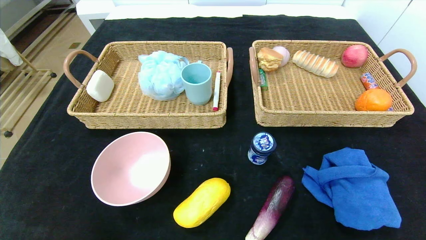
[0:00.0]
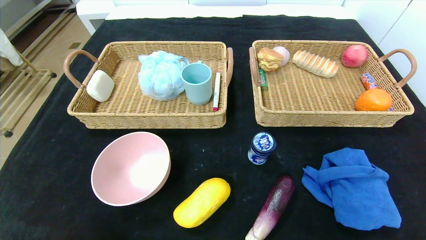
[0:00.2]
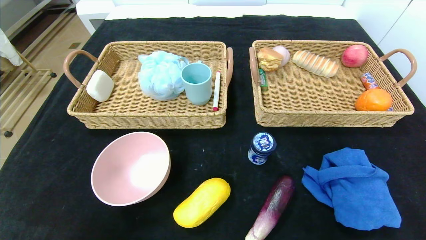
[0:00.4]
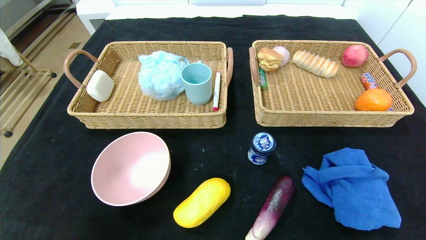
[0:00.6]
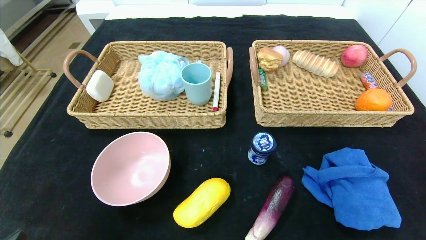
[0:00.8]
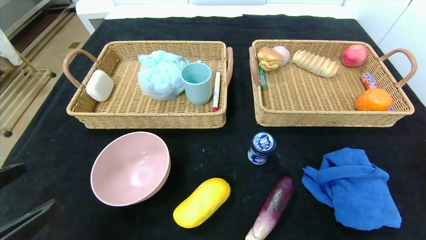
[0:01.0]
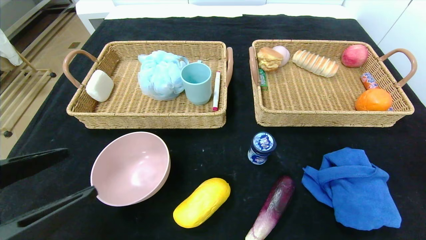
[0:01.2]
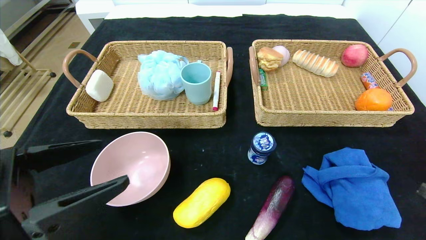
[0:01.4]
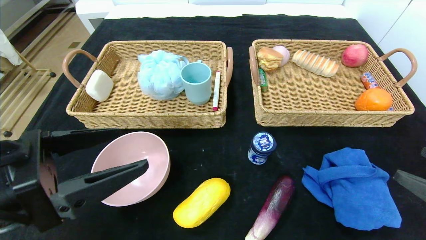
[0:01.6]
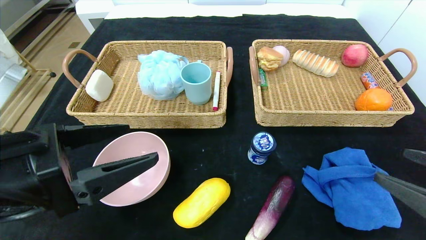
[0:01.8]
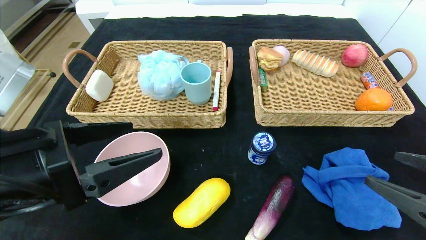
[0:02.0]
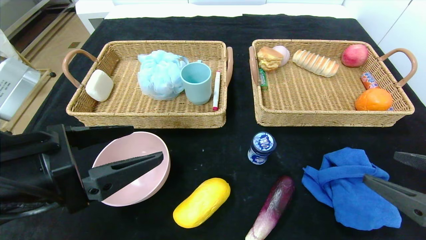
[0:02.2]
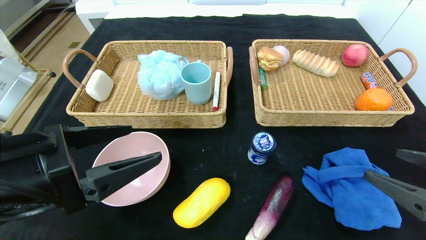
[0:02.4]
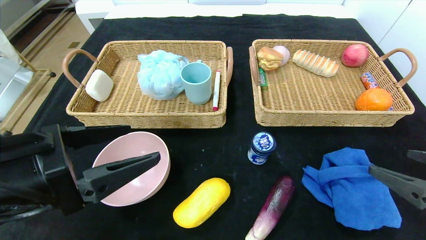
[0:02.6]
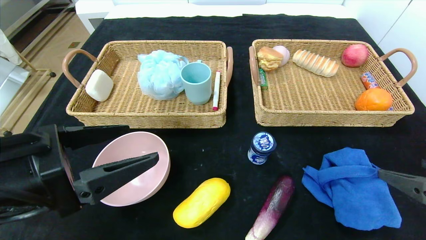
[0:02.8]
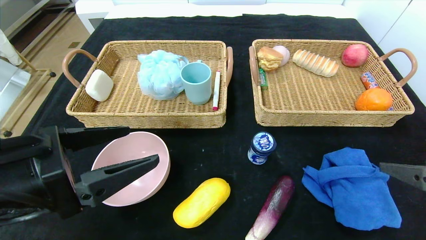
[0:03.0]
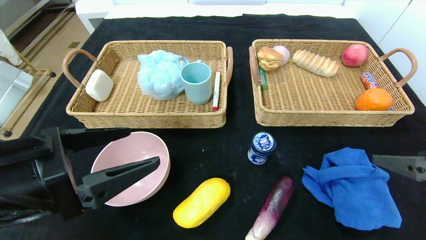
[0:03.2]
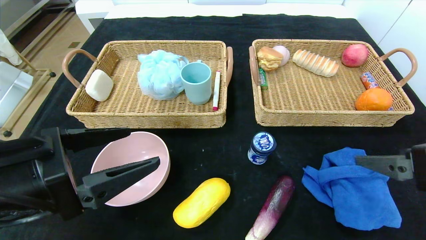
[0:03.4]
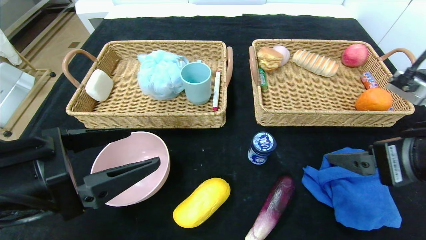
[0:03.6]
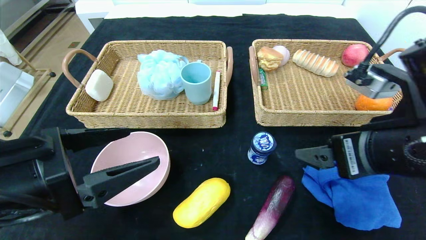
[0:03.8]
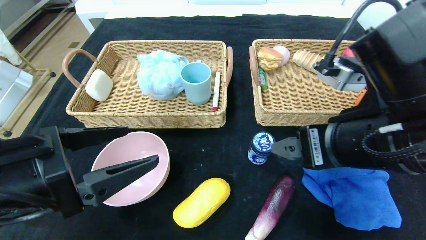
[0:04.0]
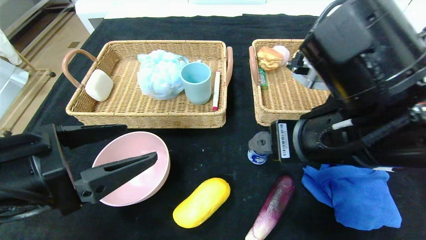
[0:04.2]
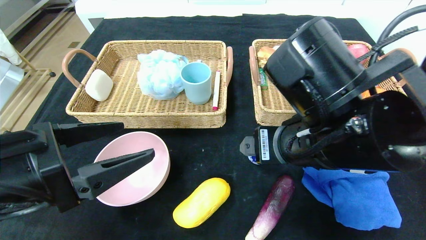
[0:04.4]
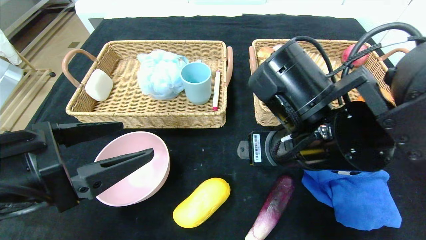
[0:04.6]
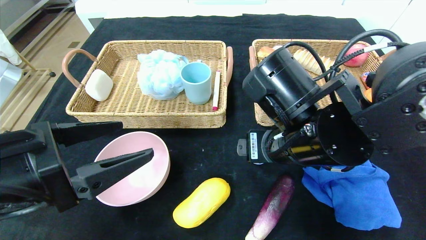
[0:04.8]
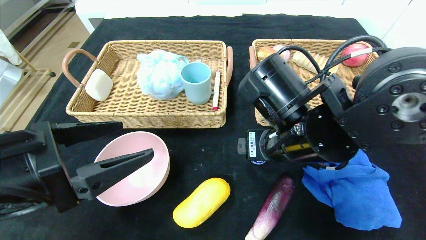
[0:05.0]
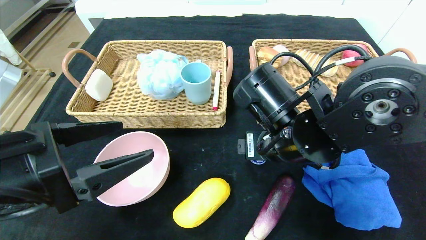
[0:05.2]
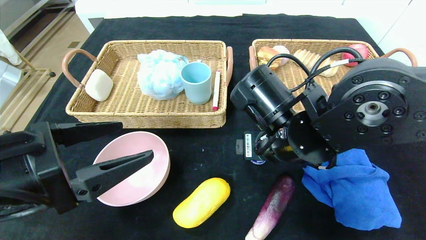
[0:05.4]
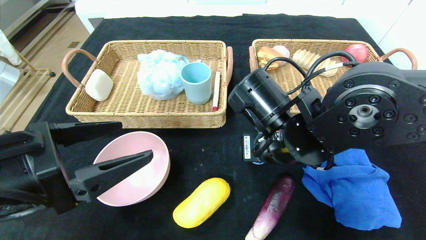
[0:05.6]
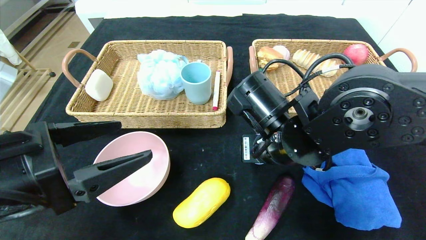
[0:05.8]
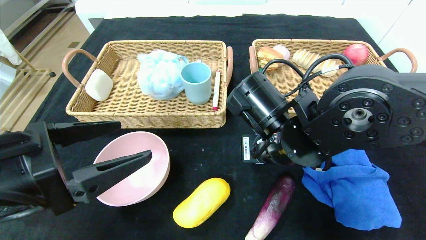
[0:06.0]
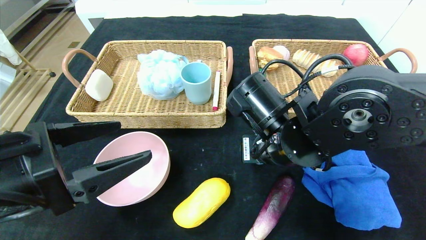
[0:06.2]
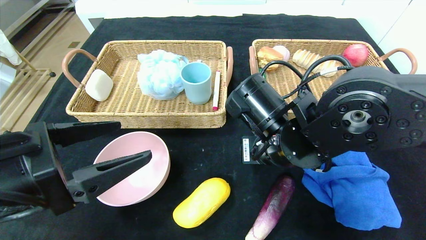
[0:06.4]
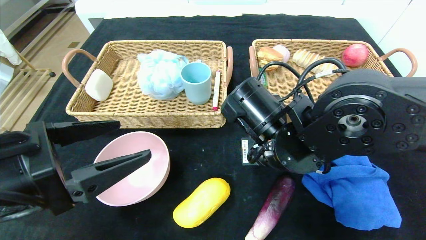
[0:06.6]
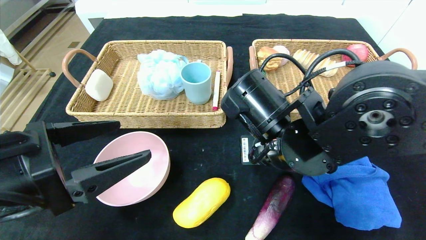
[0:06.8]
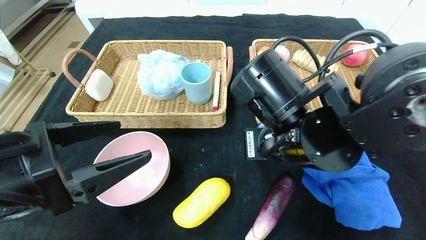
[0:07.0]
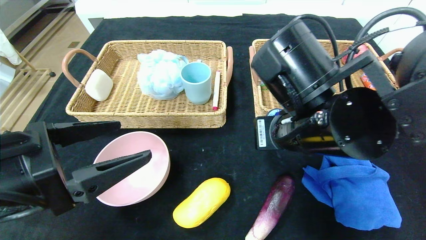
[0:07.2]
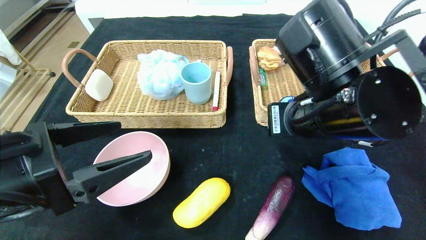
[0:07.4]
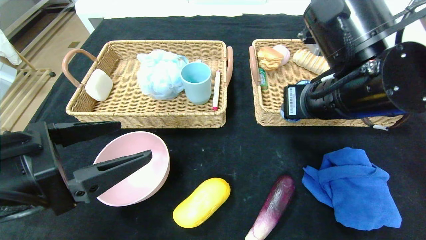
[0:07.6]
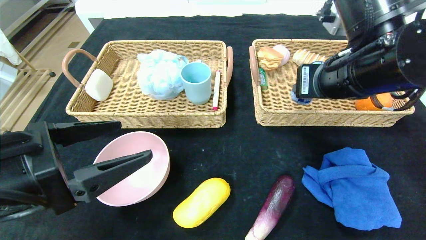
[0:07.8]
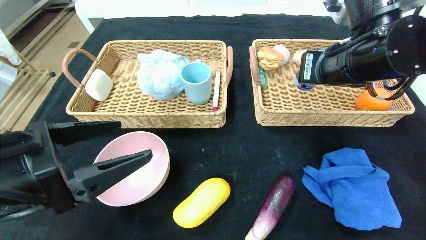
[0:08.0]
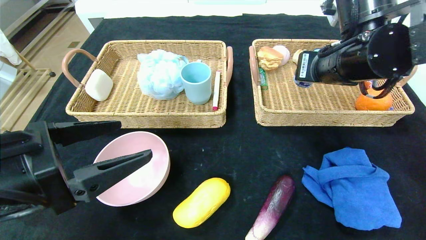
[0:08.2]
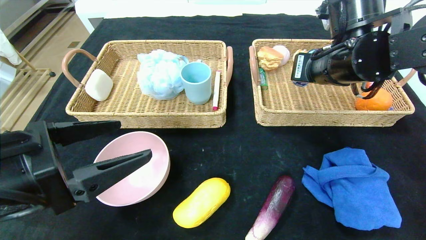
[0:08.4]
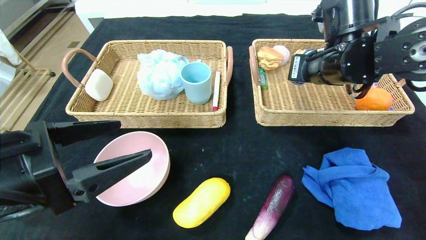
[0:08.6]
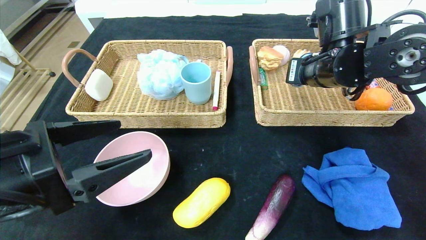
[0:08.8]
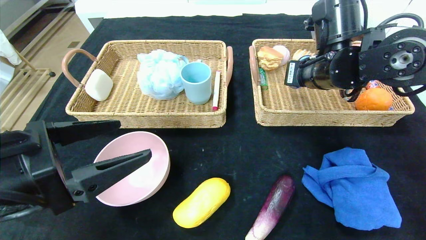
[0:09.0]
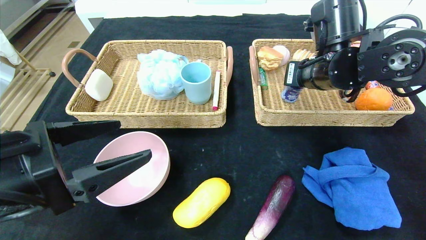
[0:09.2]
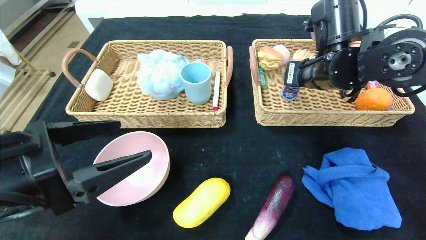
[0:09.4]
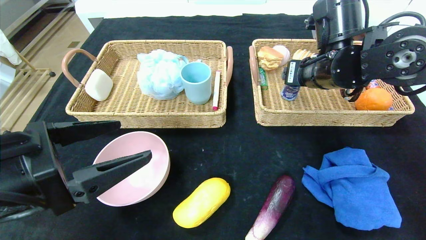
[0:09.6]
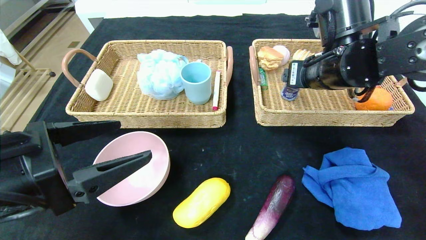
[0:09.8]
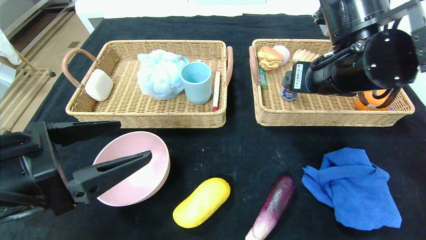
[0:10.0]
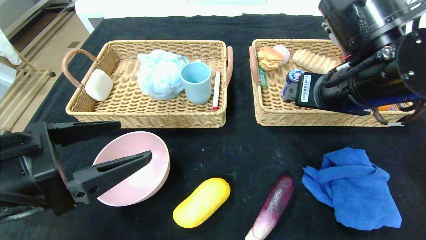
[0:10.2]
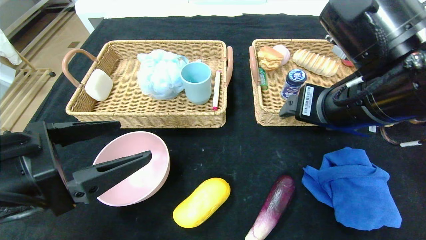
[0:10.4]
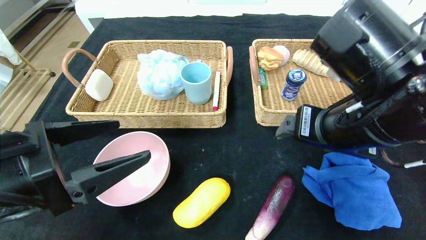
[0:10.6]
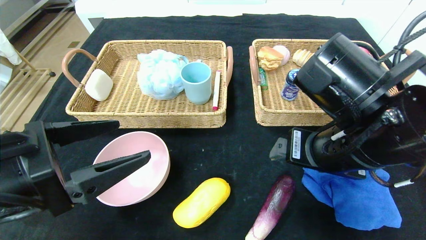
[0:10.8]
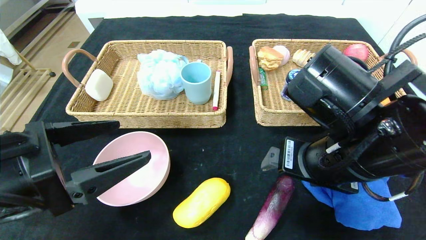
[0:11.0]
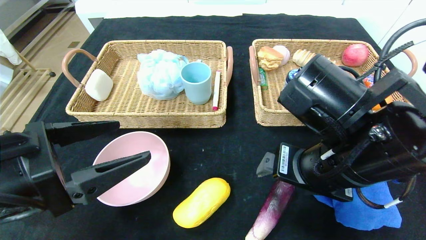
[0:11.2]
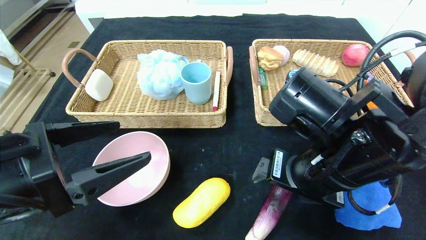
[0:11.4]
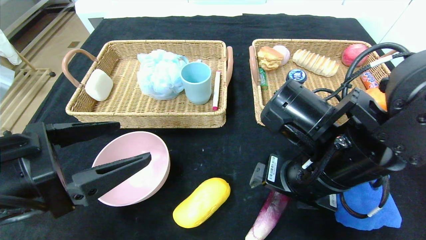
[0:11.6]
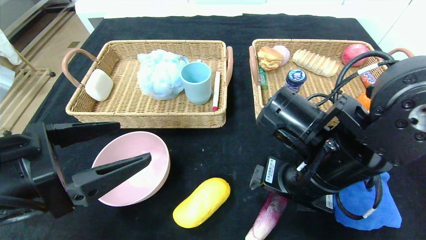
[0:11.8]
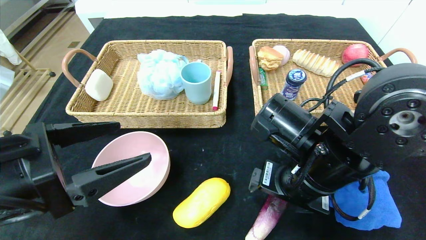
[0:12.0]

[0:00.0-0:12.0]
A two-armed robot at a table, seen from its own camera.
Step, 0:00.0 to 0:09.6: Grasp the round chewing gum and put it in the right basket.
0:00.0 to 0:01.6: The two grippers go about 5 cm forward.
0:03.0 to 0:04.4: The right gripper goes some 20 cm to the left.
0:04.4 to 0:06.0: The right gripper ends up about 5 cm from where it was, and closes its fingers.
0:06.0 to 0:07.6: The right gripper is displaced upward and to the right by roughly 10 cm.
0:07.6 to 0:09.0: The right gripper moves forward, approximately 10 cm.
0:09.0 to 0:10.4: The right gripper heads backward, covering about 15 cm, and opens its fingers.
0:10.4 to 0:12.0: The right gripper goes roughly 10 cm downward.

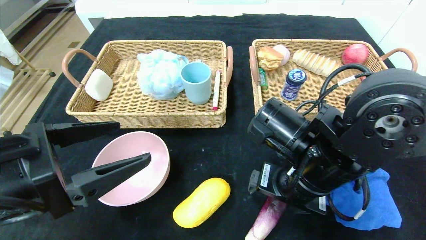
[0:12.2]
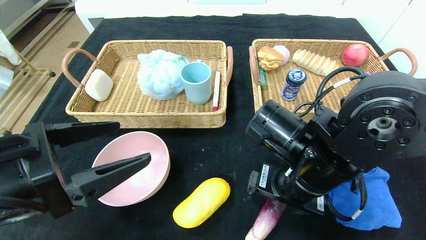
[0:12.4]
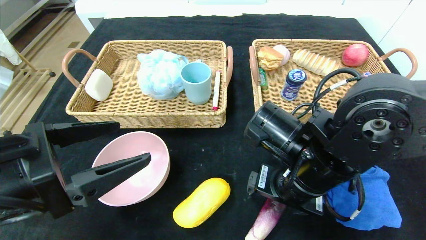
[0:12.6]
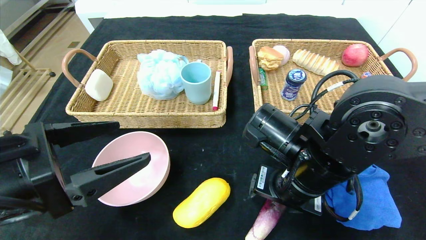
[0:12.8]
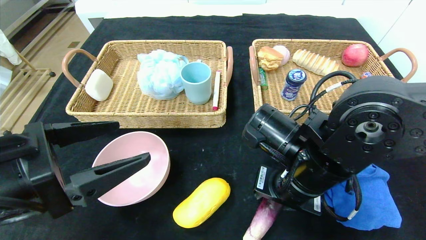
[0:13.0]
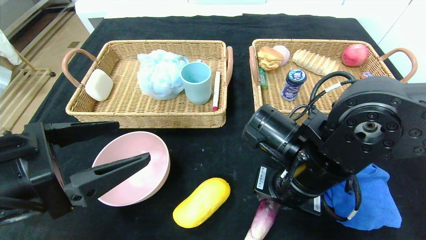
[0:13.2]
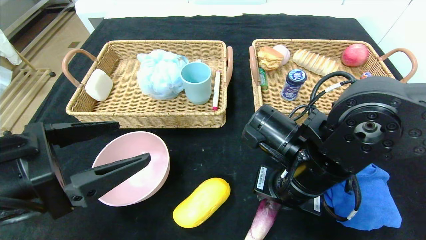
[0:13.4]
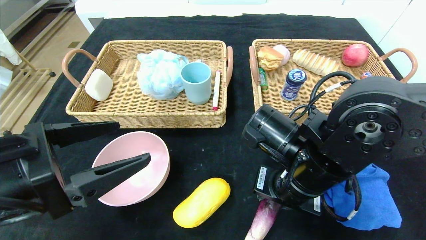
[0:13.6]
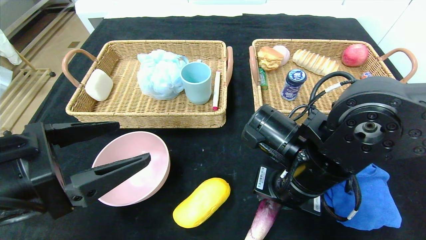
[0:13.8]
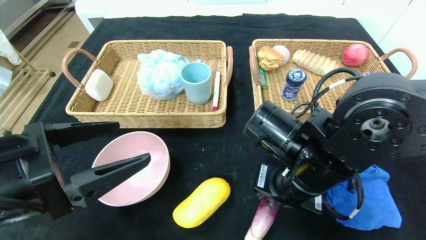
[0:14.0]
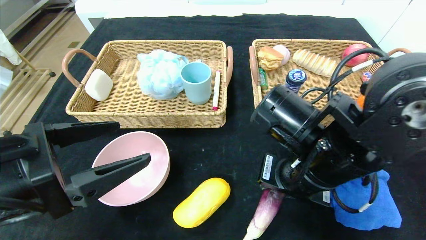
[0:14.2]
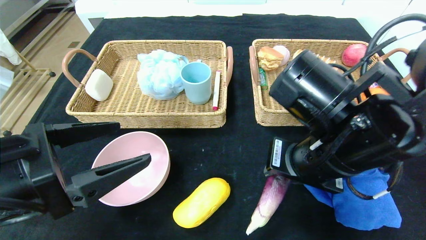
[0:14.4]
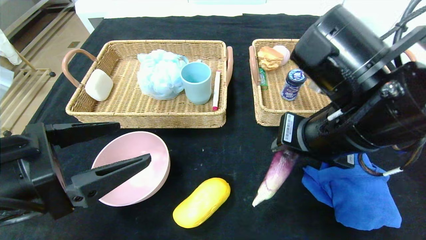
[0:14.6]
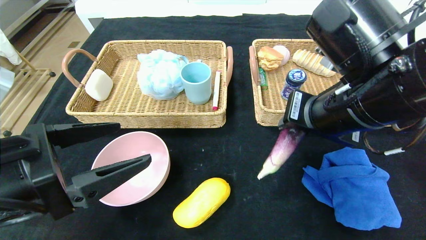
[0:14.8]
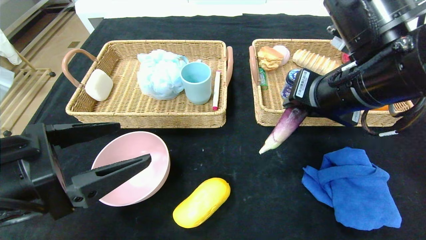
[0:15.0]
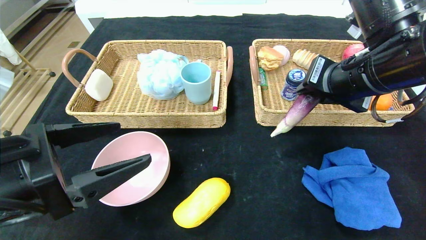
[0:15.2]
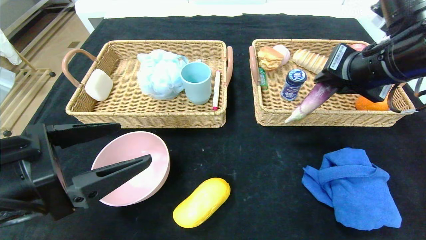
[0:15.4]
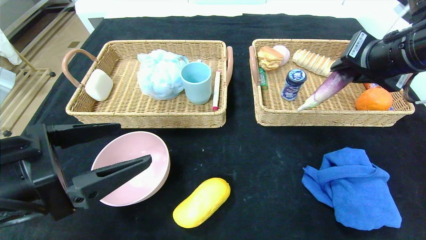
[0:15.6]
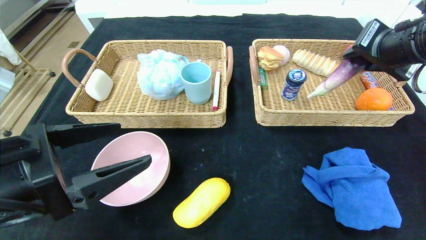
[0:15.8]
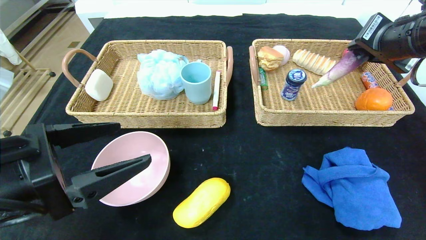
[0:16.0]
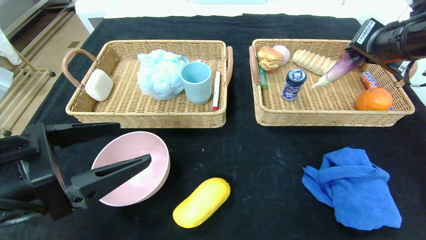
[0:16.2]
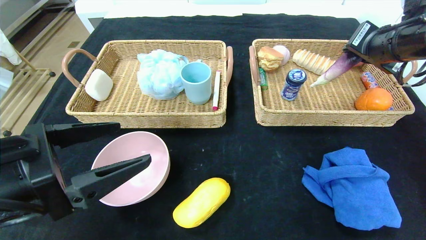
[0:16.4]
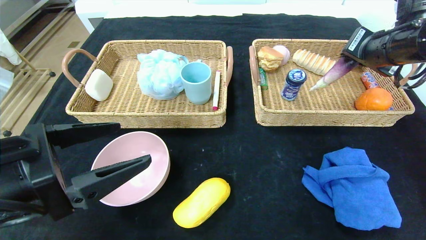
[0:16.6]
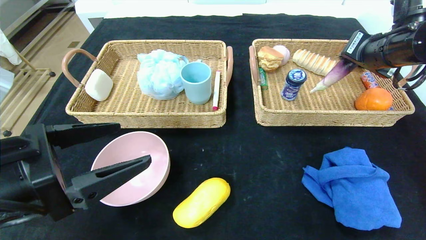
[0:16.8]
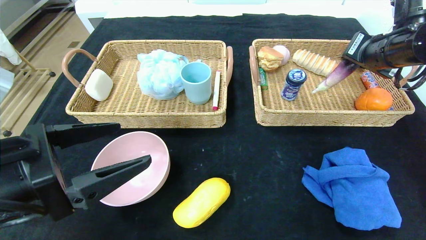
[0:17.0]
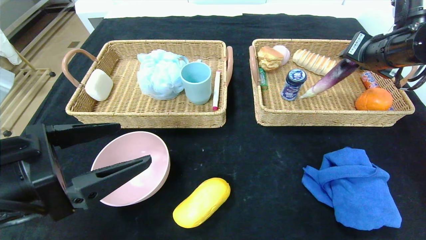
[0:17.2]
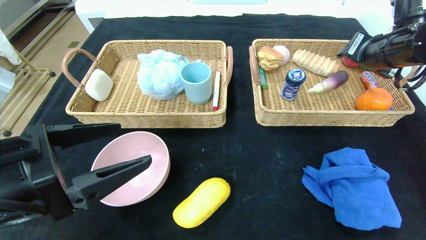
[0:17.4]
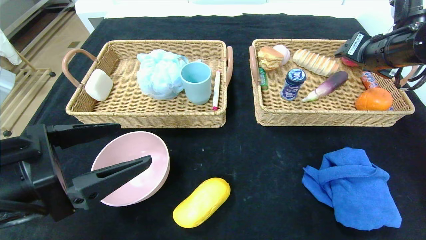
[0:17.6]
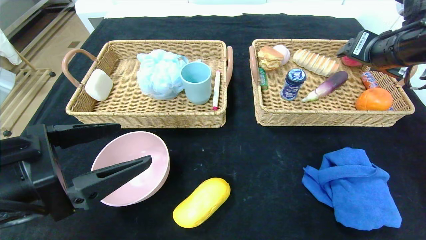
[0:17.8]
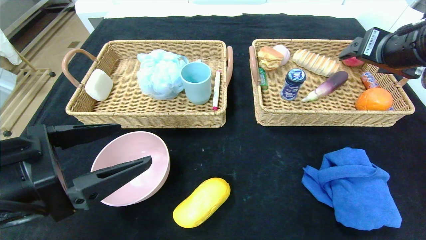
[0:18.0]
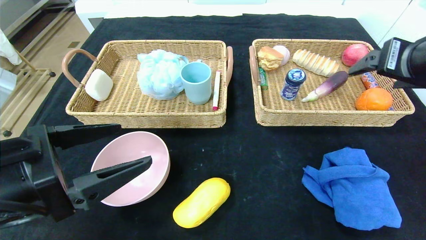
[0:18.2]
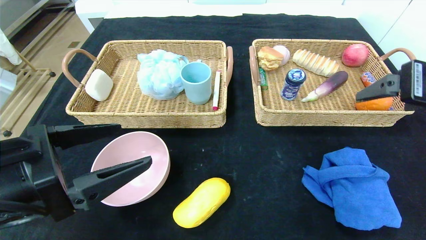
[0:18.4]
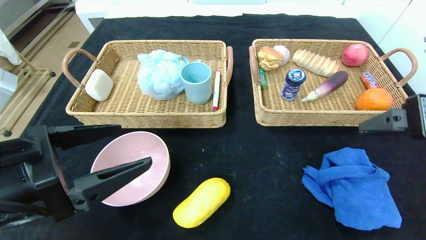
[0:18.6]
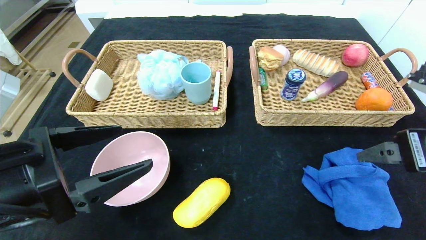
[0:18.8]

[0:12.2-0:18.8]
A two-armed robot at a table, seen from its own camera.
Step, 0:12.2 to 0:17.6: Grasp the eggplant and put it in the right basket.
0:12.2 to 0:13.8: The right gripper closes.
0:13.8 to 0:15.4: The right gripper shifts roughly 20 cm upward and to the right.
0:15.4 to 0:17.2: The right gripper shifts about 10 cm forward and to the right.
0:17.2 to 0:18.8: The right gripper shifts some 20 cm backward, and opens its fingers.
